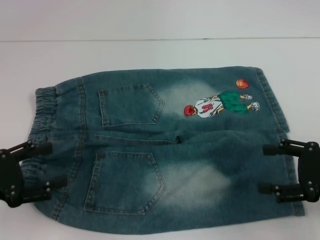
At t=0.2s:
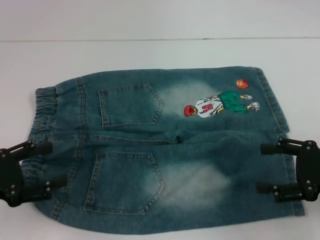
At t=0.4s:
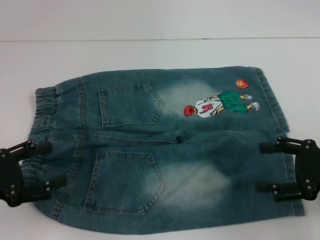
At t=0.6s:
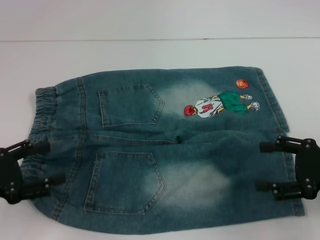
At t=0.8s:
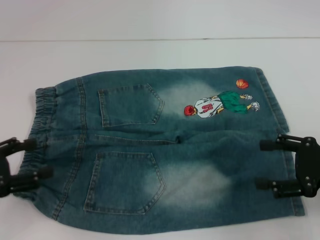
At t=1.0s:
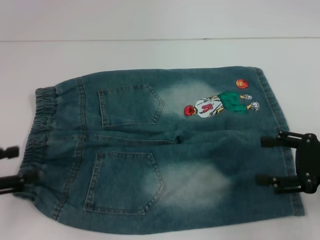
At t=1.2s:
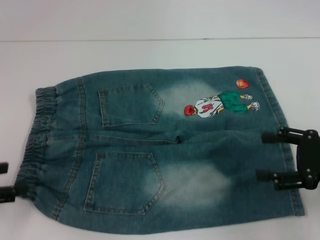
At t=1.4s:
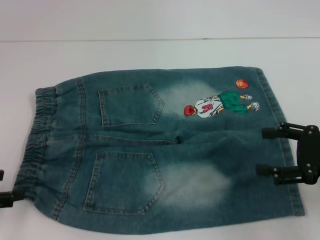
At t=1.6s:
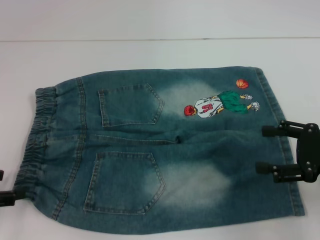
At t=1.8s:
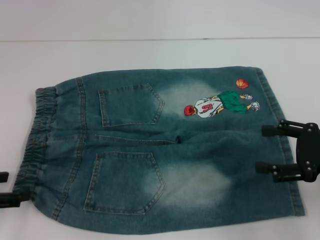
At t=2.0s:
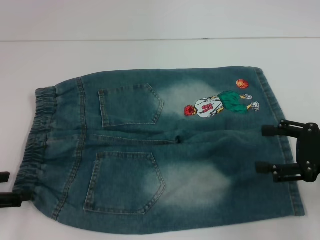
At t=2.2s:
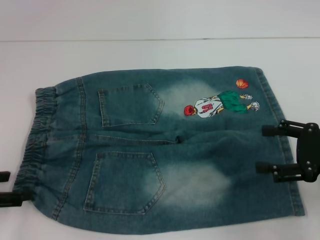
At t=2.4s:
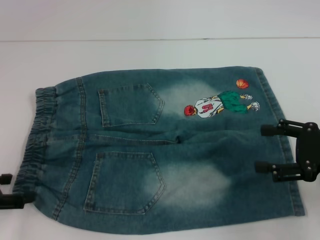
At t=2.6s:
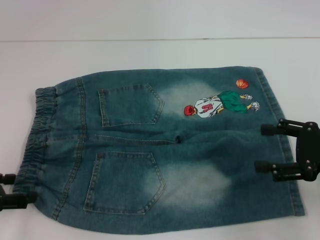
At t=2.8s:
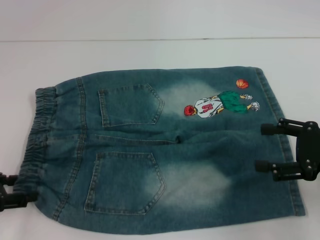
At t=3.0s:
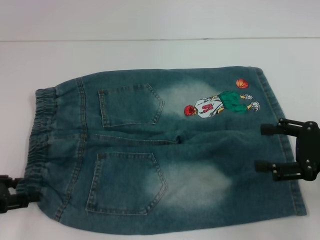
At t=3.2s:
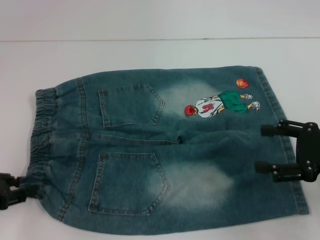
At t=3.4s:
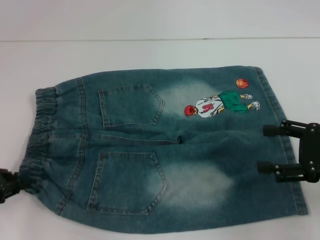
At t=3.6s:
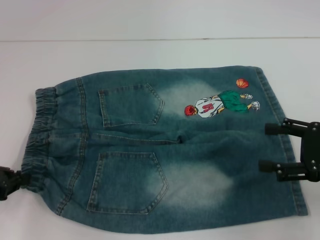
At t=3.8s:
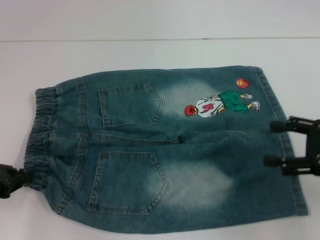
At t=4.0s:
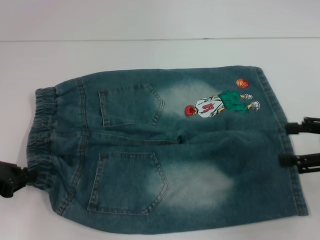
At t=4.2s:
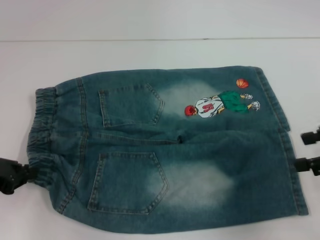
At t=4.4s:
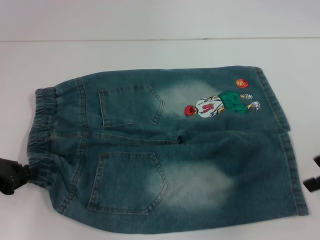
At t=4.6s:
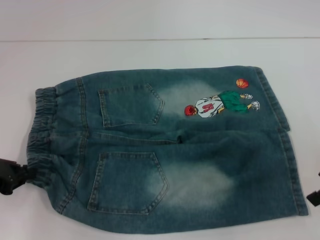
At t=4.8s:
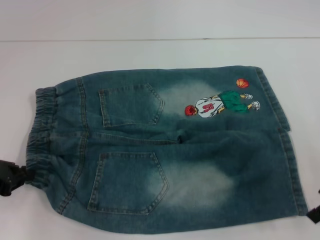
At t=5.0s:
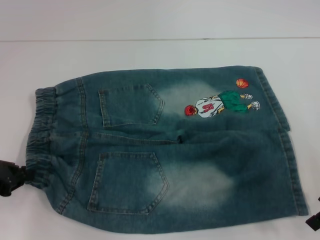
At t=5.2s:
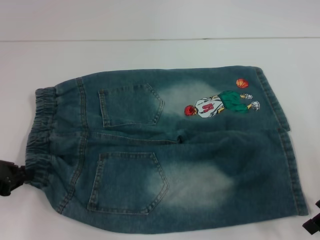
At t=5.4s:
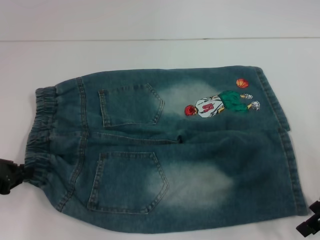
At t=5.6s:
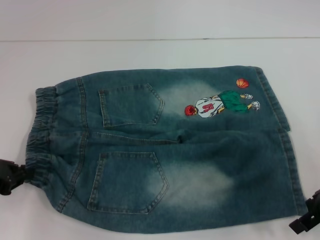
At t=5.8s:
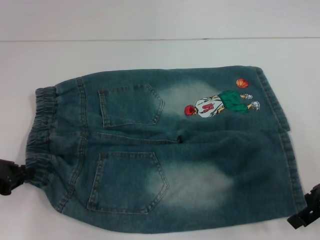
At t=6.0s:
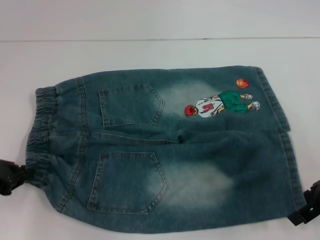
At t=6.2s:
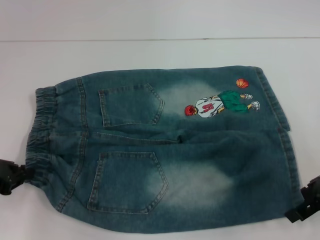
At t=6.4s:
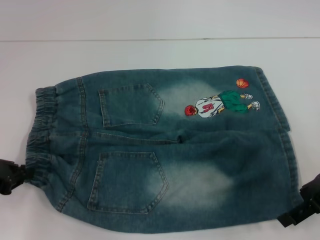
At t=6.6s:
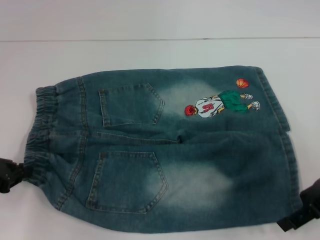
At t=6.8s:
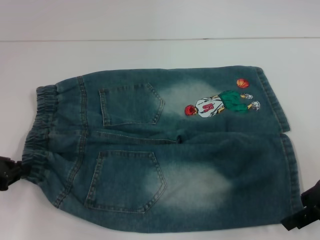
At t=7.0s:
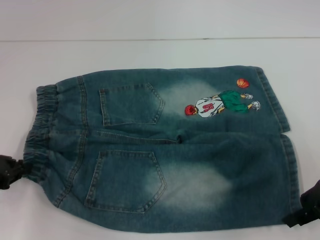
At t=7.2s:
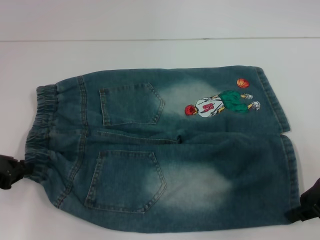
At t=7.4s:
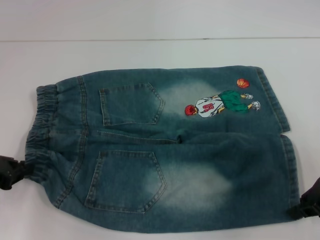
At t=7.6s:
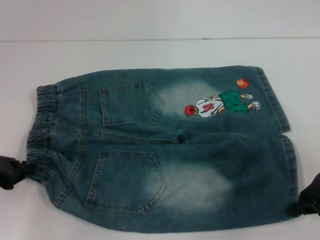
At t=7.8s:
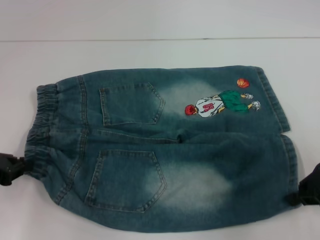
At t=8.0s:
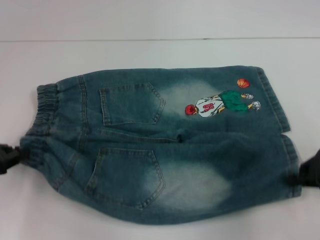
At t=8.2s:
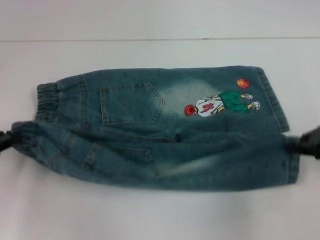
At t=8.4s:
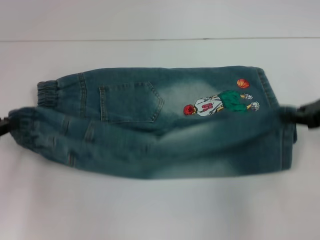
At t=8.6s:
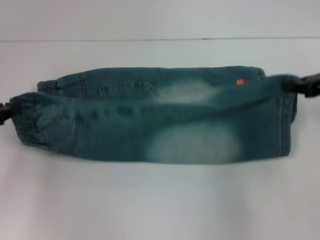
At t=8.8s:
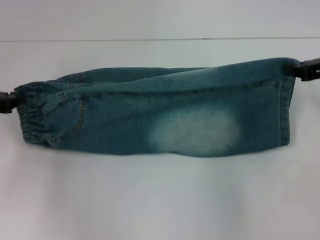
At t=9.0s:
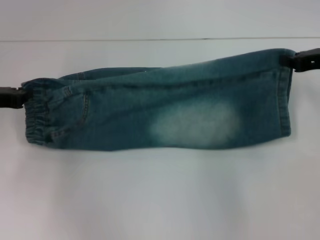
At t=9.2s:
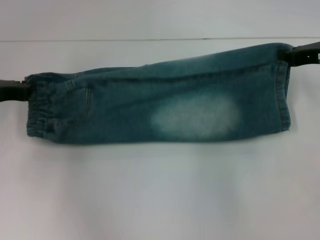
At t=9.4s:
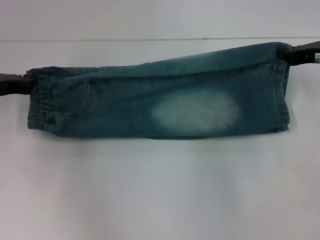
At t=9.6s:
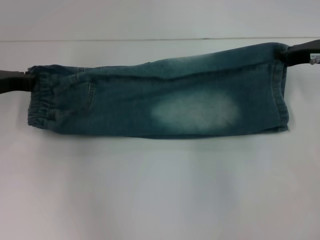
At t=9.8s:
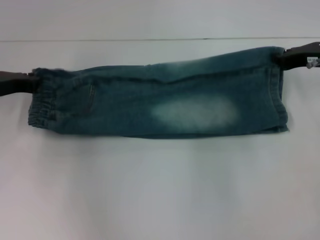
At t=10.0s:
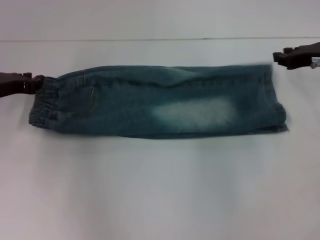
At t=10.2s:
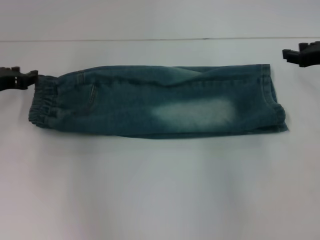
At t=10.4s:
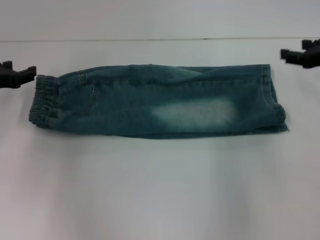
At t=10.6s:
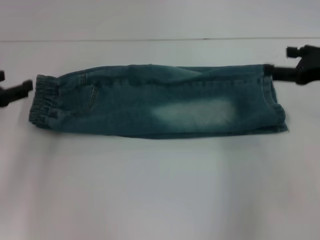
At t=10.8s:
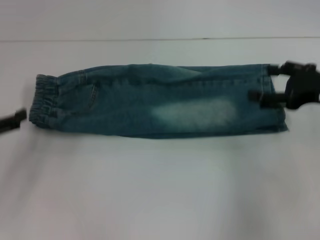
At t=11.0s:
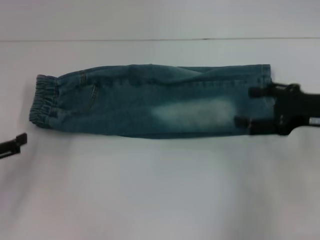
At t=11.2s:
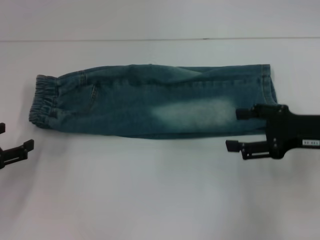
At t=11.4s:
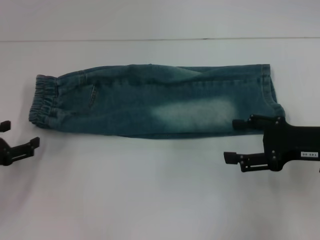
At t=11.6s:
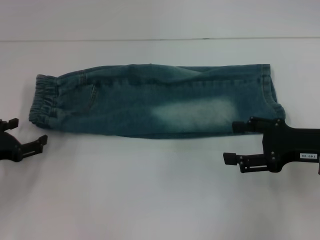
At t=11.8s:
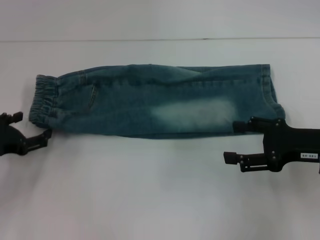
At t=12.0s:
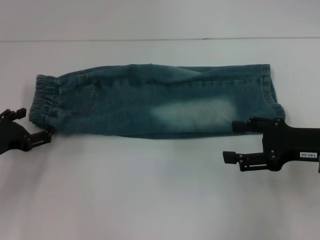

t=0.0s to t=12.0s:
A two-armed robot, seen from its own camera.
Step, t=0.0s to t=3.6s: Hold the lower left waistband with your left hand.
Step, t=3.8s to t=7.6s: Grab the lower right pant leg with your right hand.
Step, t=7.8s to t=9.8s: Fold upward with your left hand.
t=1.6s to t=3.0s: The grippers move only a little.
t=3.0s to t=4.4s: The right gripper shifts some 5 cm upward; the left gripper closes.
t=4.4s to t=6.0s: The right gripper changes place by about 5 cm.
t=6.0s to t=7.6s: The right gripper closes.
t=7.6s to t=9.0s: Both grippers travel together forward, about 10 cm.
t=9.0s to t=10.4s: The right gripper opens its fingers. The left gripper opens up.
t=10.4s to t=12.0s: The right gripper is displaced backward by approximately 10 cm, and opens up. Meanwhile the left gripper moves backward and downward, about 10 cm, and opens up.

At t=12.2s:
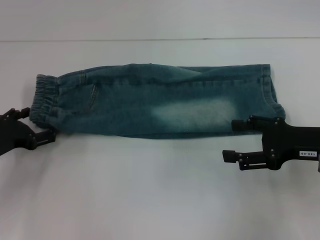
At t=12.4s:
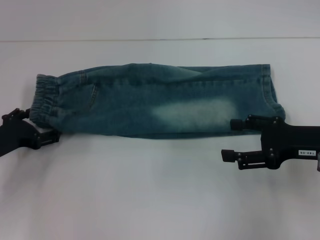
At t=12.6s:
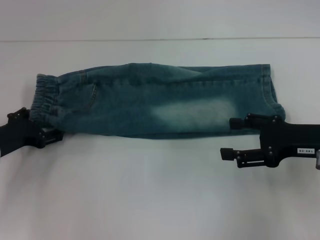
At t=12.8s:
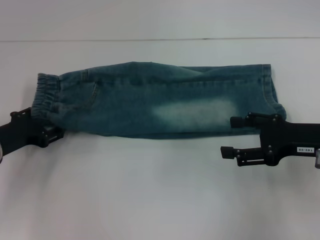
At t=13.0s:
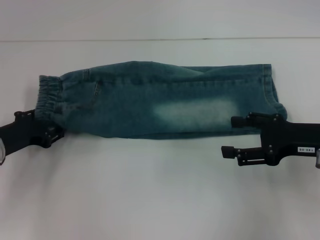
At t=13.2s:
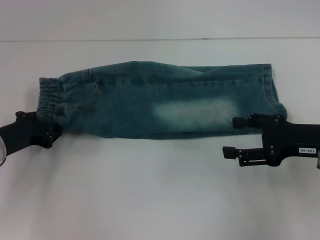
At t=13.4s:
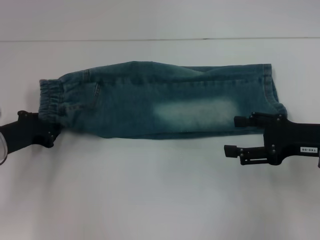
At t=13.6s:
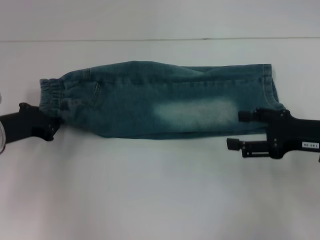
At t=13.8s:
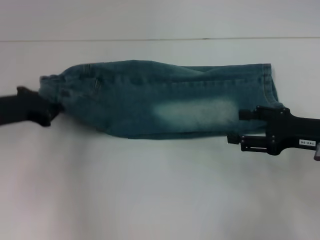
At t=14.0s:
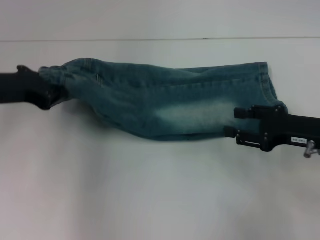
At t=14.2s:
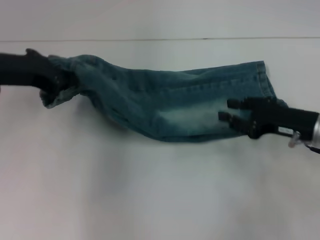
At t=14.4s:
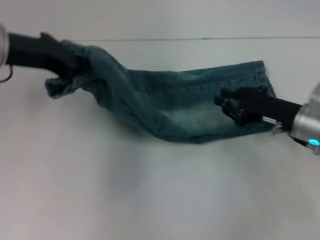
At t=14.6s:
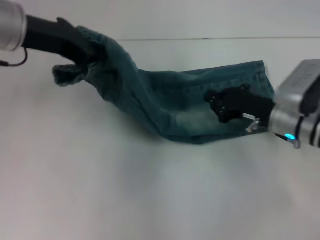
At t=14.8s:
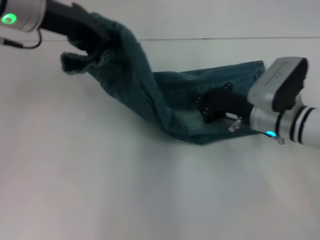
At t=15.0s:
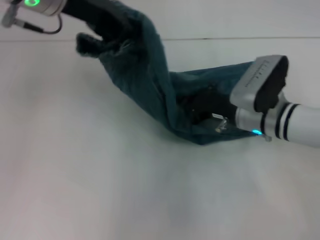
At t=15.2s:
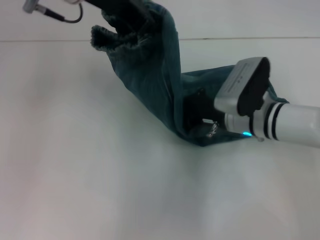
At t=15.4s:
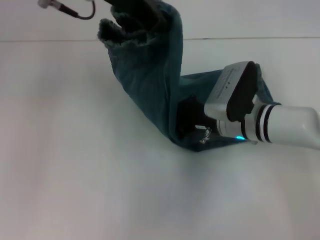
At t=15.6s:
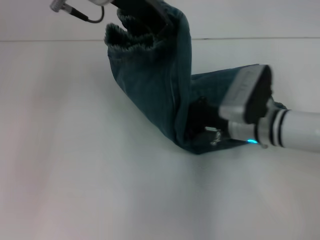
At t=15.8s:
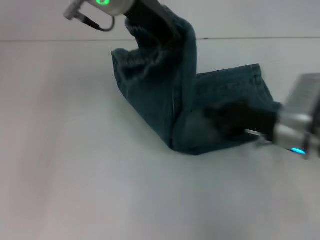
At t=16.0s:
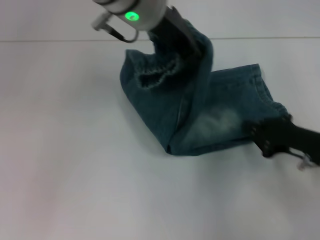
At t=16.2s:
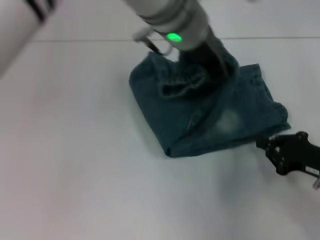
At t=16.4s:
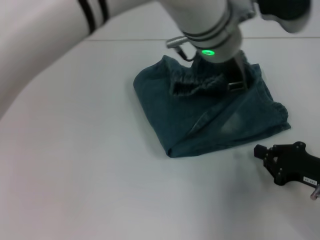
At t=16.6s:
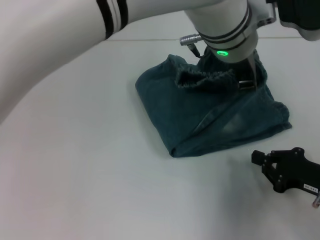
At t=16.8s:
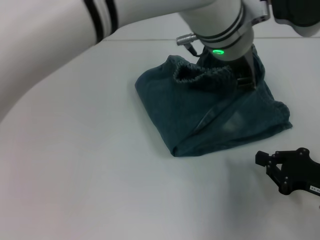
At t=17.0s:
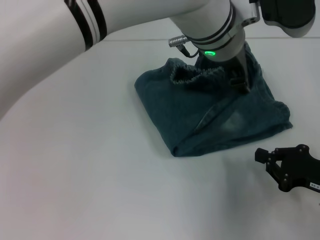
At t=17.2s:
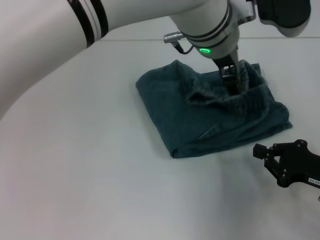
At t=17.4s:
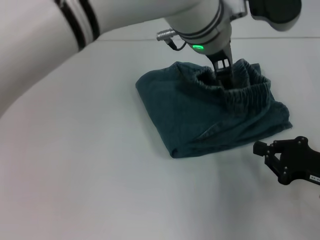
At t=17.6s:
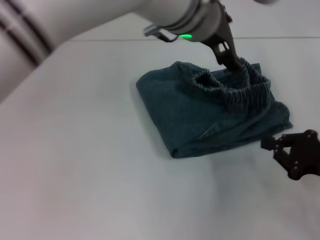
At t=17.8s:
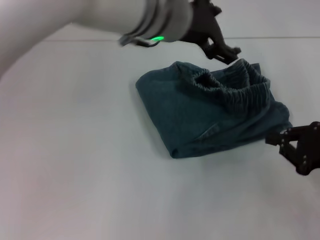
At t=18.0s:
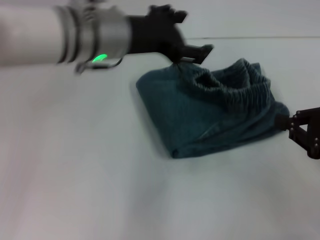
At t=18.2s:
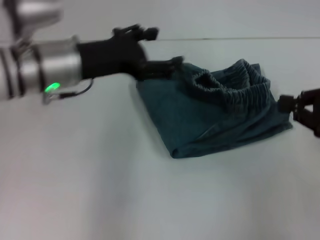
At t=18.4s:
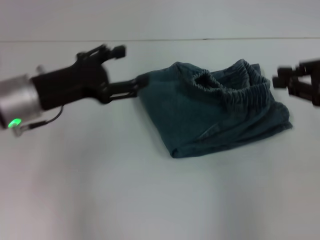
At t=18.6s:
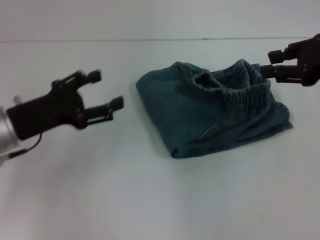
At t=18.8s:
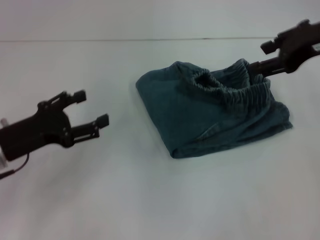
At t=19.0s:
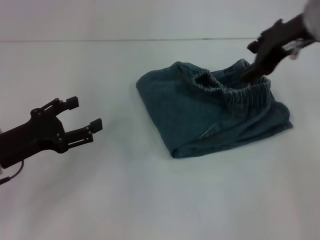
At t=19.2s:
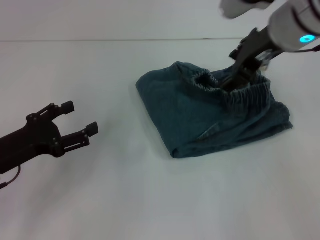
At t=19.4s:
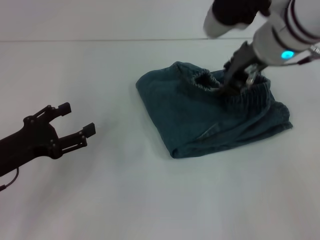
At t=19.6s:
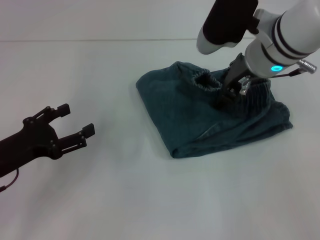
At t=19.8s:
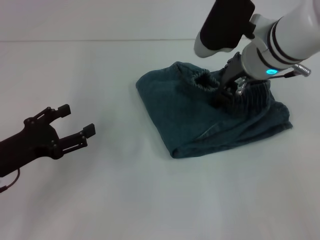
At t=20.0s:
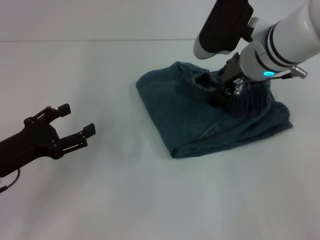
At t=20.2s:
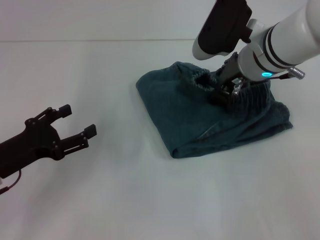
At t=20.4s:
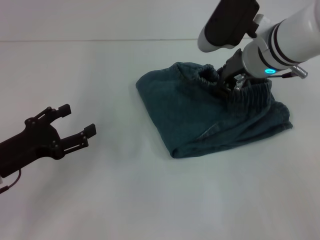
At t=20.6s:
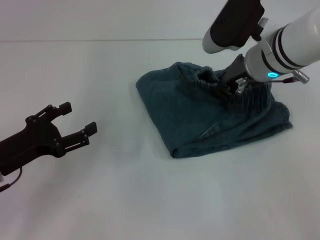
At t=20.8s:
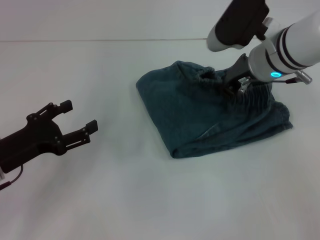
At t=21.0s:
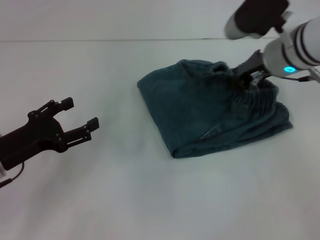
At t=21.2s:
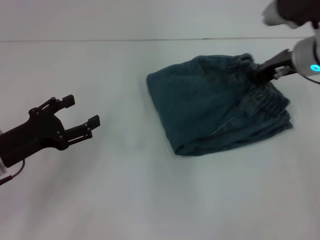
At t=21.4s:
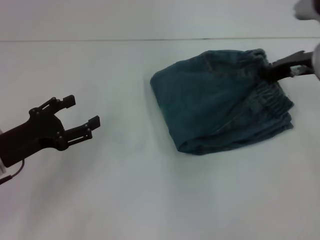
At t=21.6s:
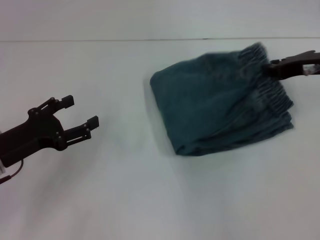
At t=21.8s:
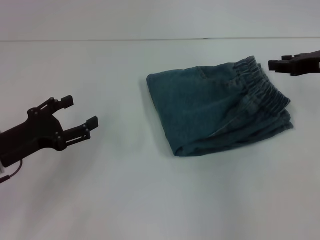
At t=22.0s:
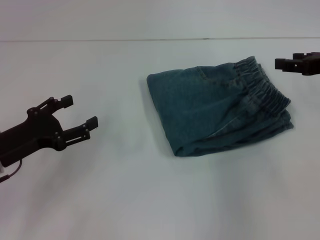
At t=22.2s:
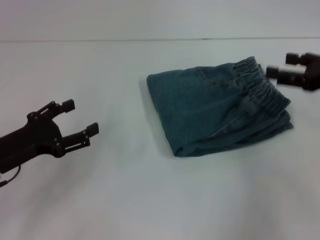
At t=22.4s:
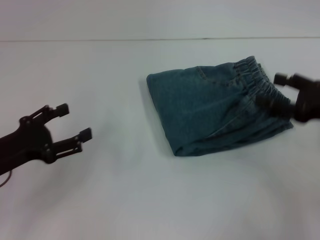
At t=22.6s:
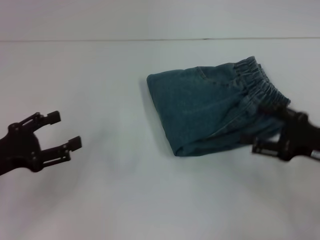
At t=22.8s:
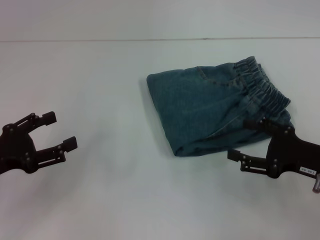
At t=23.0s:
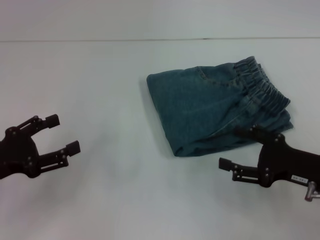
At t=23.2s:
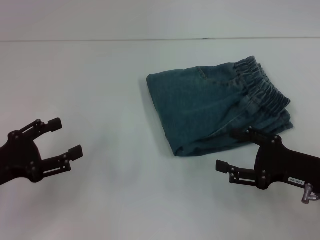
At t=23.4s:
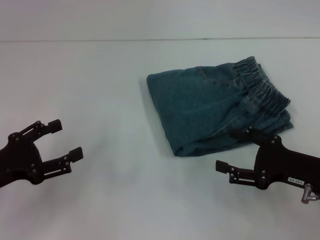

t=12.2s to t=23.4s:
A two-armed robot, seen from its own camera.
Step, t=13.8s to t=15.4s: Press the middle of the pants with your right hand.
Step, t=15.6s to t=17.2s: Fold to the right with your left hand.
Step, t=17.4s to t=21.6s: Adjust the pants with your right hand.
t=12.2s to t=13.8s: The left gripper heads upward, covering roughly 5 cm, and closes.
t=13.8s to t=15.4s: The right gripper travels to the left and forward by roughly 15 cm, and closes. The left gripper shifts about 25 cm upward and to the right.
t=15.4s to t=17.0s: The right gripper heads to the right and backward, covering about 20 cm. Meanwhile the left gripper heads to the right and downward, covering about 15 cm, and opens.
t=17.0s to t=18.6s: The left gripper travels to the left and downward by some 35 cm, and opens up. The right gripper is displaced upward and forward by roughly 25 cm.
t=18.6s to t=20.2s: The right gripper is displaced to the left, forward and downward by approximately 20 cm, and opens its fingers; the left gripper ends up about 5 cm from where it was.
t=20.2s to t=21.8s: The right gripper is displaced to the right by about 15 cm, and closes up.
t=21.8s to t=23.4s: The left gripper moves approximately 5 cm. Meanwhile the right gripper travels backward and downward by about 15 cm, and opens its fingers.
